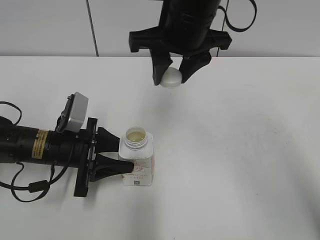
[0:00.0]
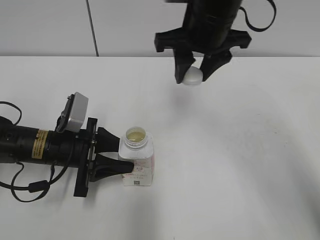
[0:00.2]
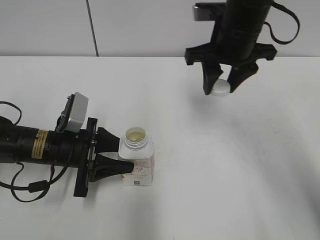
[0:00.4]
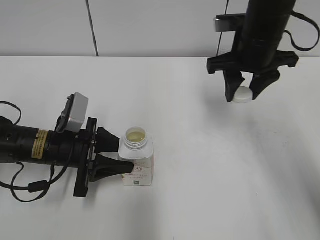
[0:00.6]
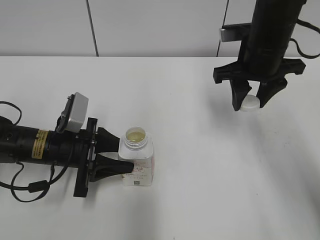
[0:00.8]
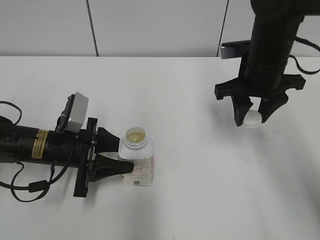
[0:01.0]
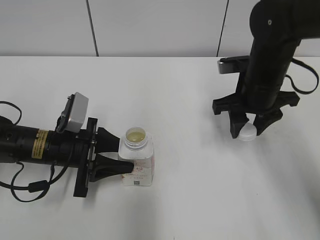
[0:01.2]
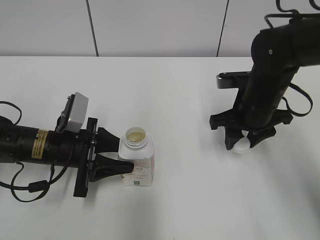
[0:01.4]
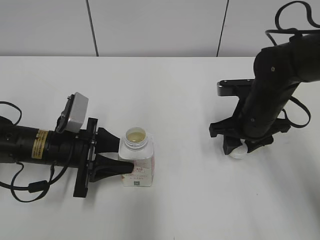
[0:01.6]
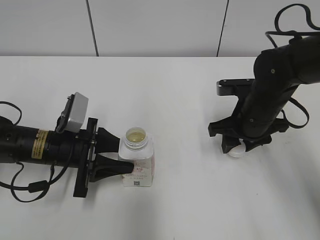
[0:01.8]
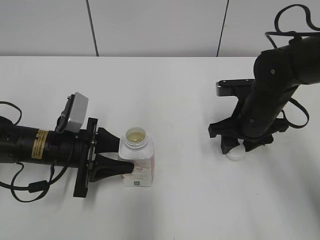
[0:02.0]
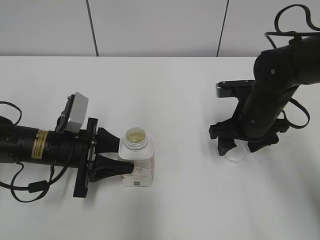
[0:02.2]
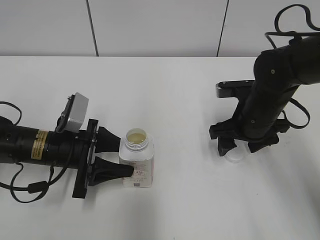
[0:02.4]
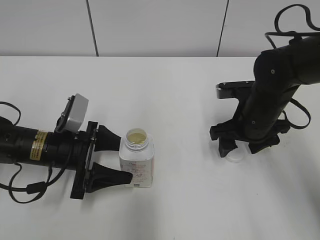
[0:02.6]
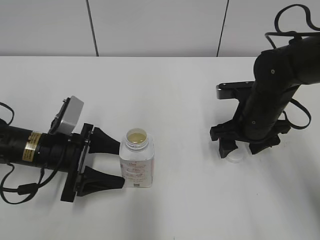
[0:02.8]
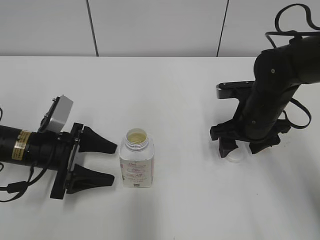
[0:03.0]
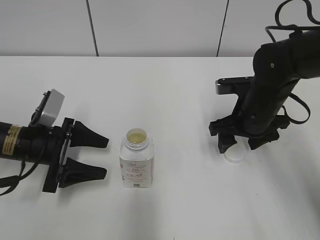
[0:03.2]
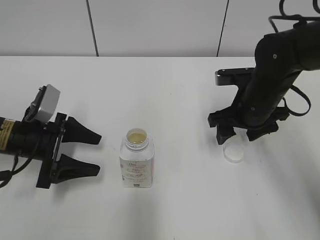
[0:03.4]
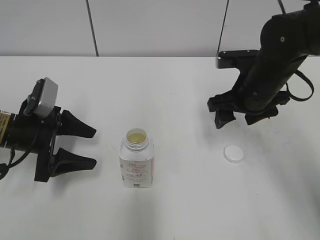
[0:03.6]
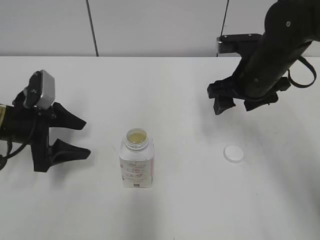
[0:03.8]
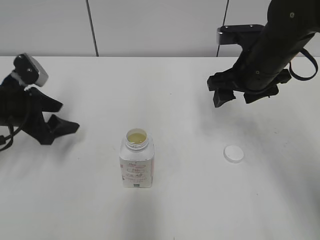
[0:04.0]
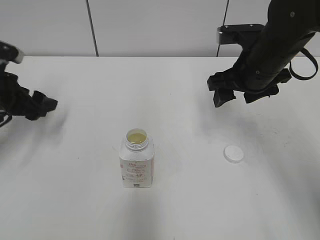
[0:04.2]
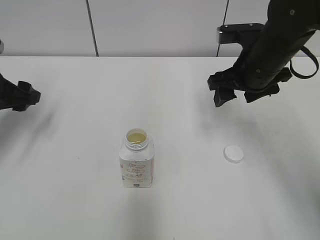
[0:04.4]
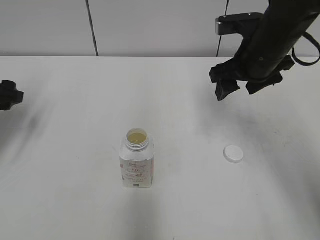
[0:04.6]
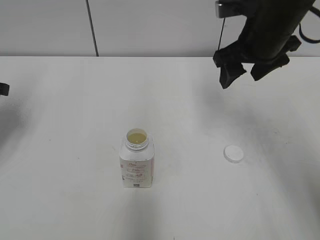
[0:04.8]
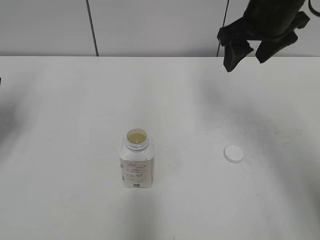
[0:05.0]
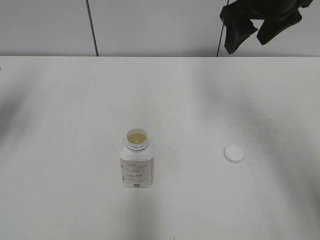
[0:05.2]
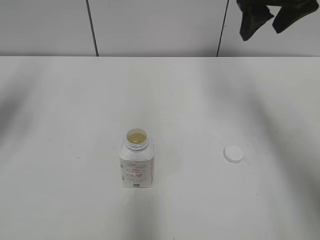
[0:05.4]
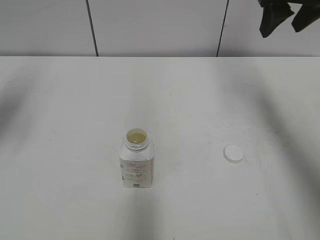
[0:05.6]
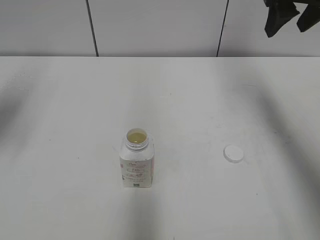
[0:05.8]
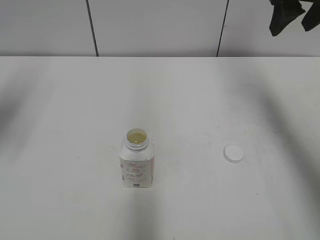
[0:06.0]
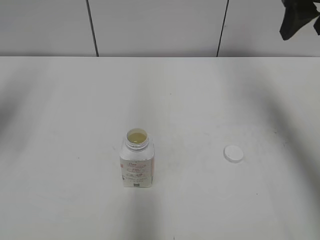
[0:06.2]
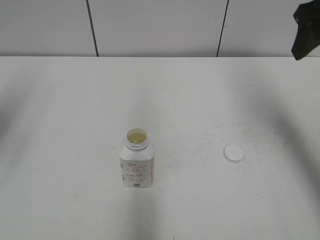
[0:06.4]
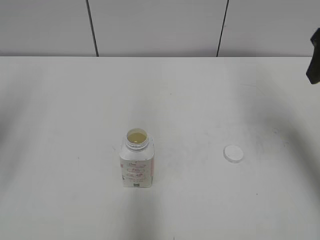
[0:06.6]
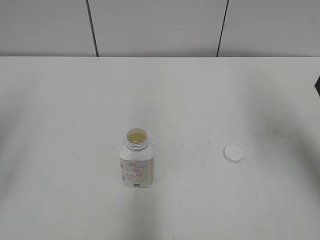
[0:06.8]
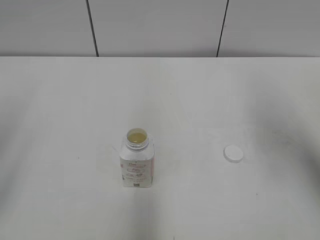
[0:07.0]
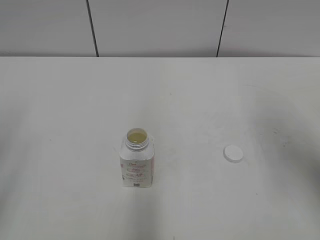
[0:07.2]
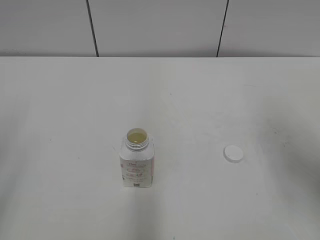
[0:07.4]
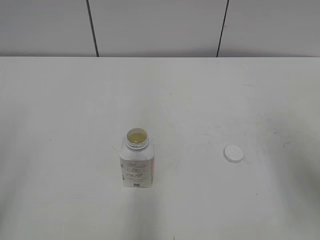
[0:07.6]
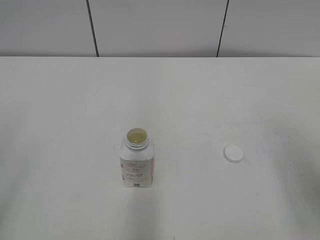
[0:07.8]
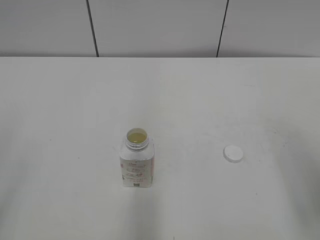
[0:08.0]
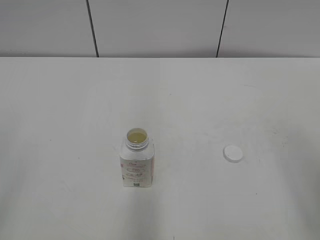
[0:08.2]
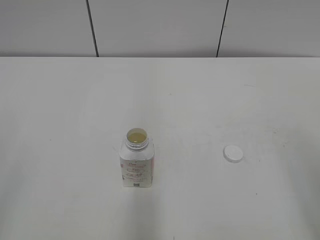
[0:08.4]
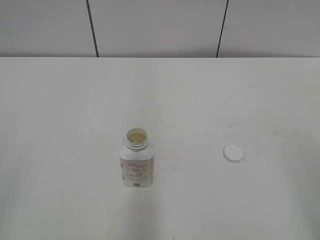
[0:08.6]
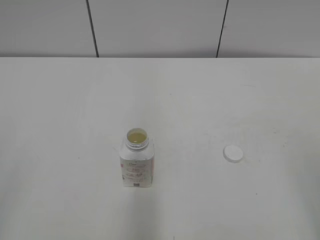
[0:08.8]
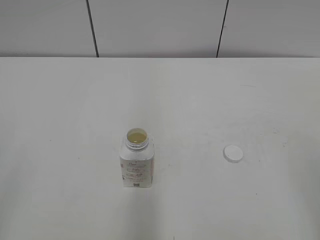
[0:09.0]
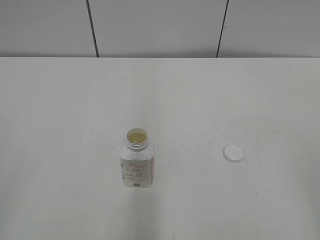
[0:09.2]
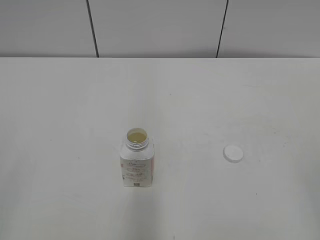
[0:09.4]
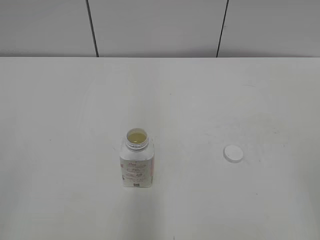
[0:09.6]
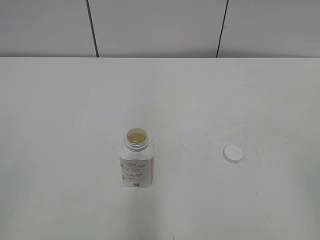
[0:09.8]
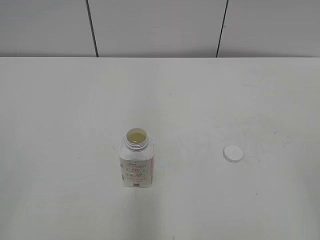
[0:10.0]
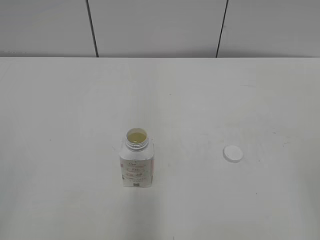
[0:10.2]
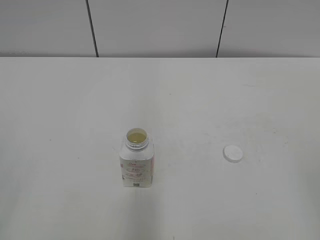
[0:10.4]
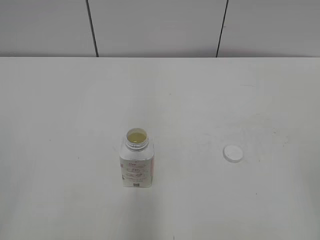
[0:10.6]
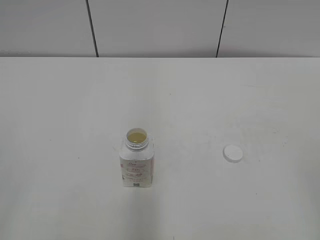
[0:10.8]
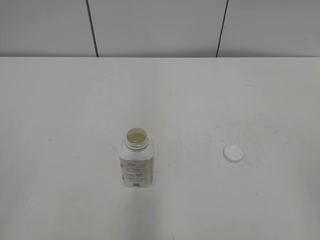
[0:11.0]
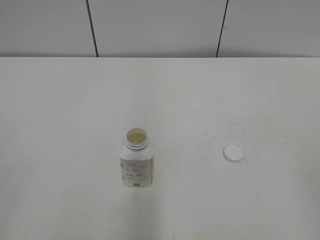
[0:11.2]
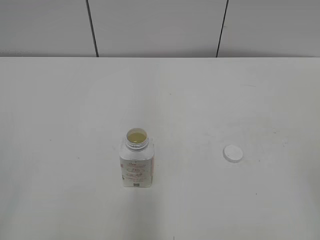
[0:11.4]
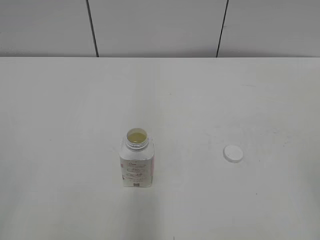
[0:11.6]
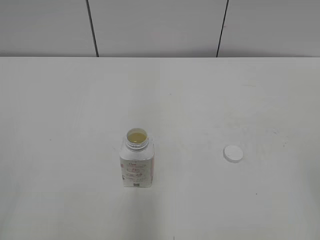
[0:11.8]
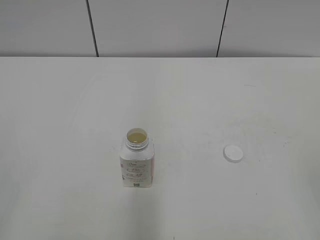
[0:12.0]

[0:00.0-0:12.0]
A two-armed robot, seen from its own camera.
Step, 0:00.0 to 0:02.0: Place the bottle cap on the table with the right gripper.
Step, 0:02.2 to 0:02.8: Place the bottle on the table with the left gripper.
0:00.0 to 0:01.6: The right gripper shifts roughly 20 cm downward and to the right.
0:01.6 to 0:03.0: The left gripper opens. Meanwhile the right gripper opens.
0:03.0 to 0:04.4: The left gripper moves upward and to the left, approximately 15 cm. Meanwhile the right gripper is displaced upward by approximately 10 cm.
0:04.4 to 0:06.0: The right gripper travels upward and to the right by roughly 15 cm. The left gripper moves upward, roughly 15 cm.
0:06.0 to 0:07.6: Both grippers travel together backward, some 20 cm.
0:07.6 to 0:09.0: The right gripper shifts approximately 15 cm backward.

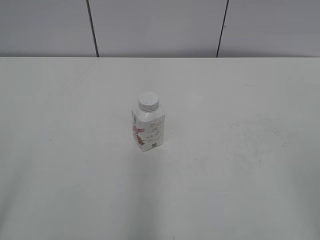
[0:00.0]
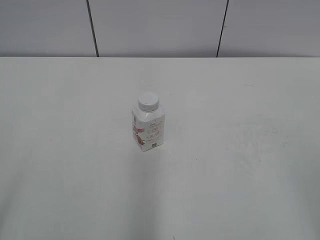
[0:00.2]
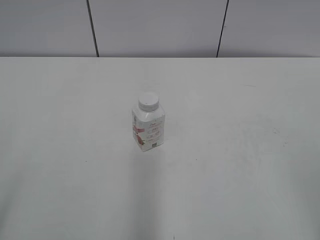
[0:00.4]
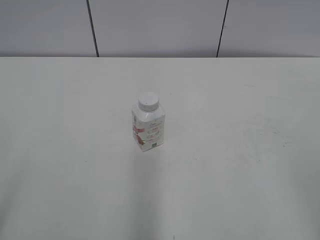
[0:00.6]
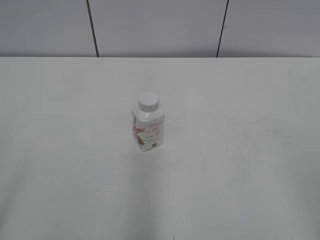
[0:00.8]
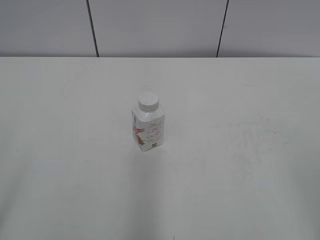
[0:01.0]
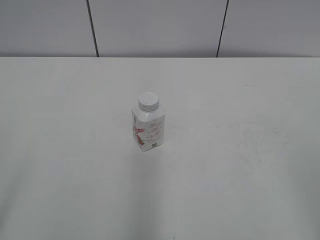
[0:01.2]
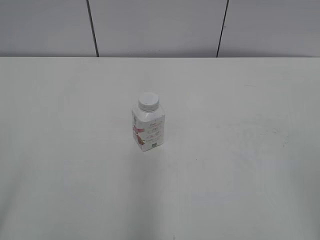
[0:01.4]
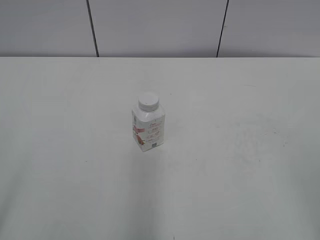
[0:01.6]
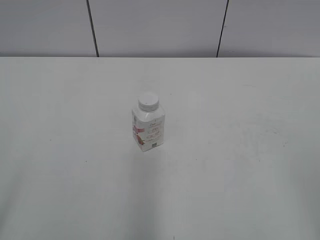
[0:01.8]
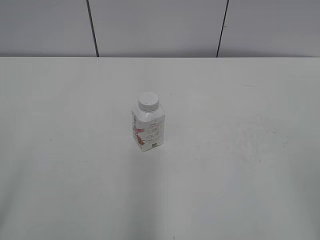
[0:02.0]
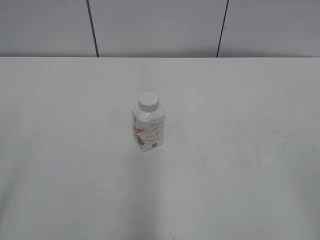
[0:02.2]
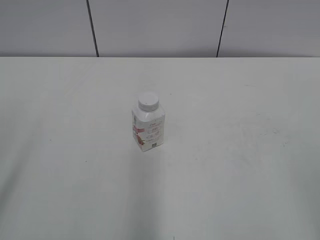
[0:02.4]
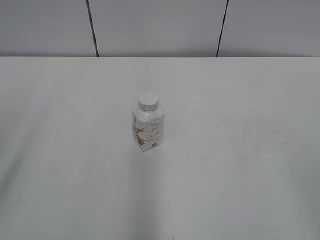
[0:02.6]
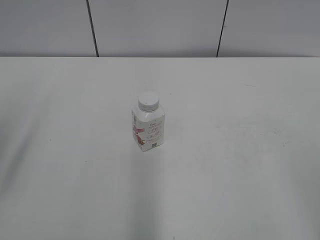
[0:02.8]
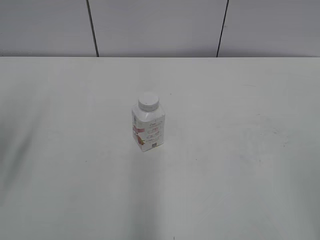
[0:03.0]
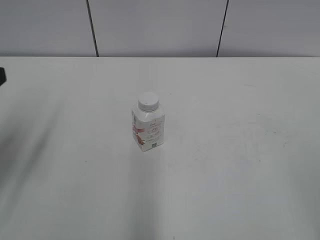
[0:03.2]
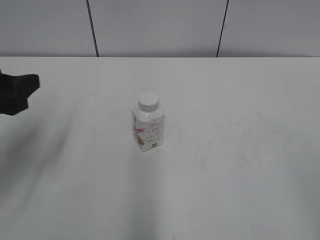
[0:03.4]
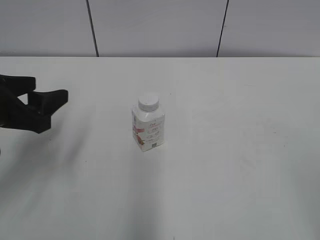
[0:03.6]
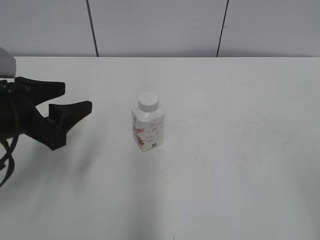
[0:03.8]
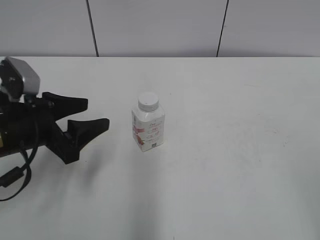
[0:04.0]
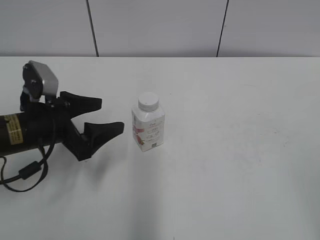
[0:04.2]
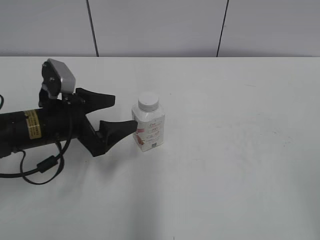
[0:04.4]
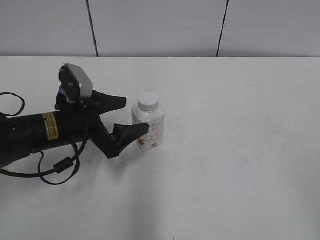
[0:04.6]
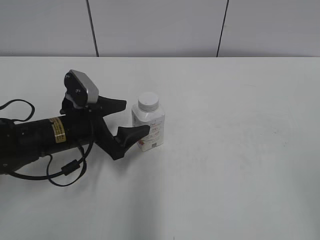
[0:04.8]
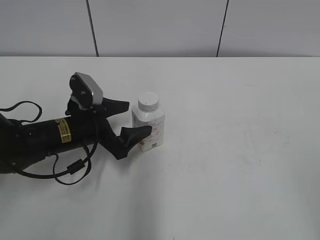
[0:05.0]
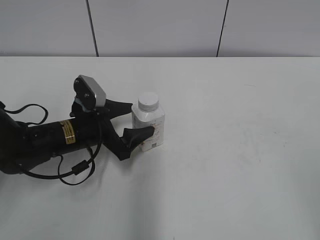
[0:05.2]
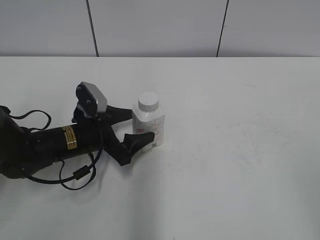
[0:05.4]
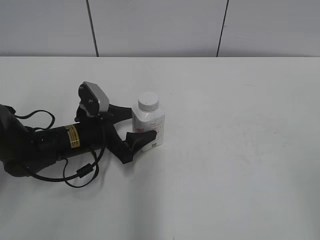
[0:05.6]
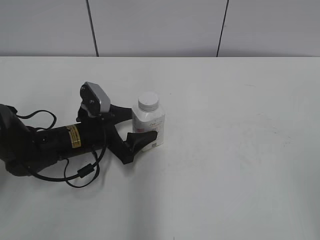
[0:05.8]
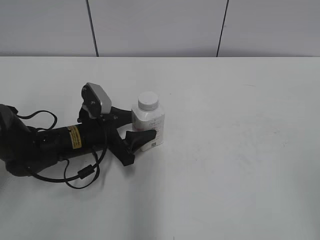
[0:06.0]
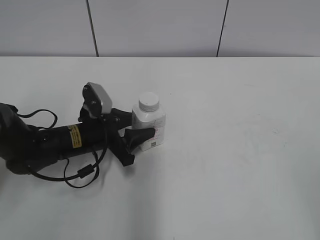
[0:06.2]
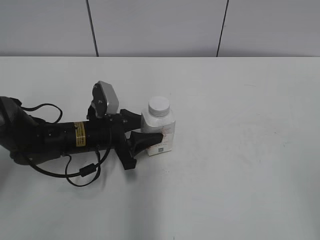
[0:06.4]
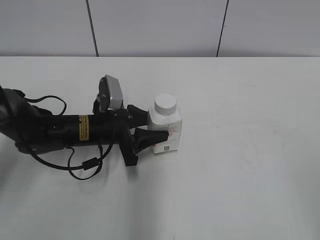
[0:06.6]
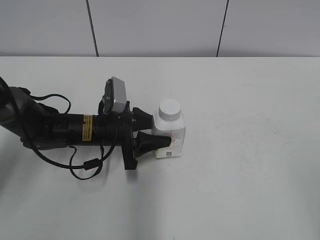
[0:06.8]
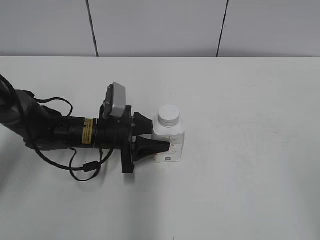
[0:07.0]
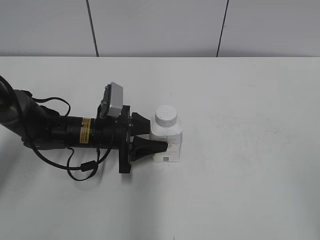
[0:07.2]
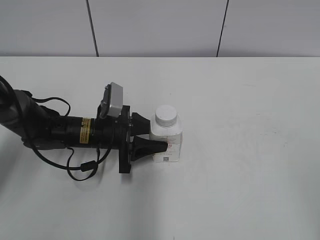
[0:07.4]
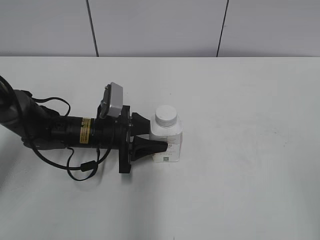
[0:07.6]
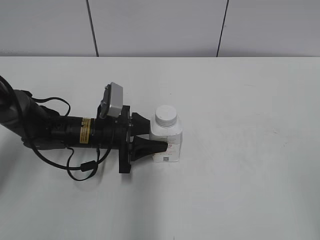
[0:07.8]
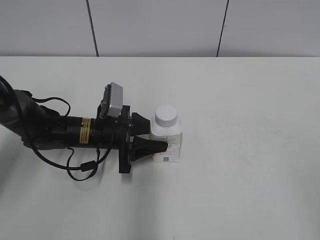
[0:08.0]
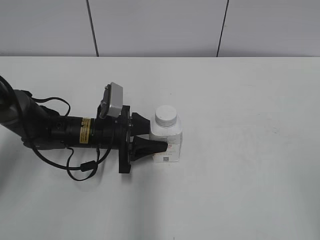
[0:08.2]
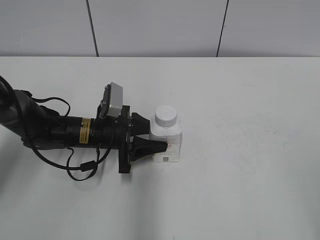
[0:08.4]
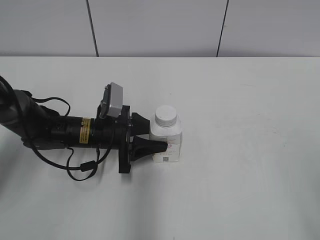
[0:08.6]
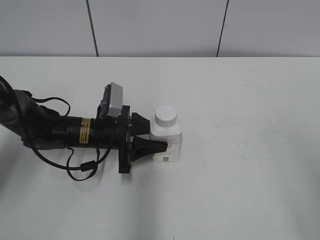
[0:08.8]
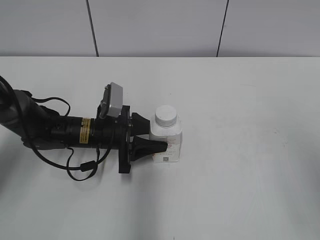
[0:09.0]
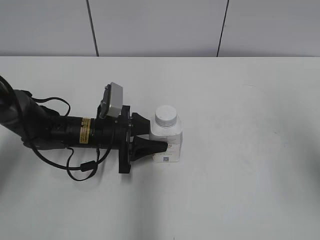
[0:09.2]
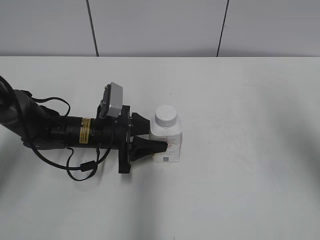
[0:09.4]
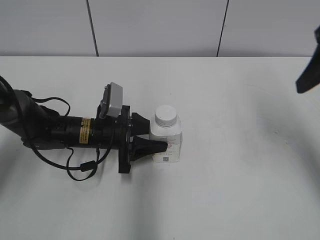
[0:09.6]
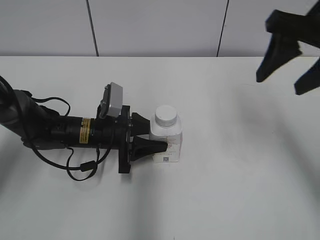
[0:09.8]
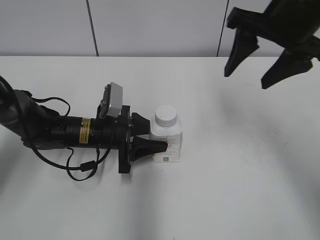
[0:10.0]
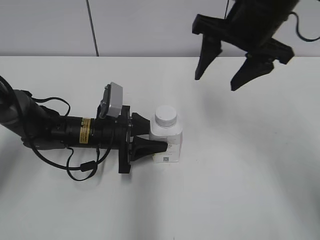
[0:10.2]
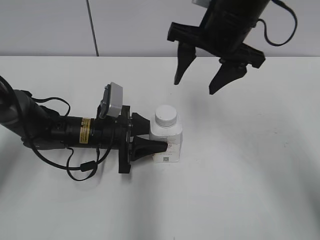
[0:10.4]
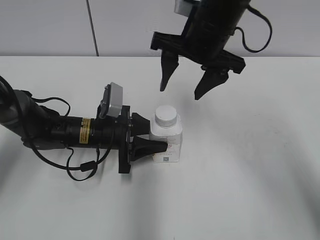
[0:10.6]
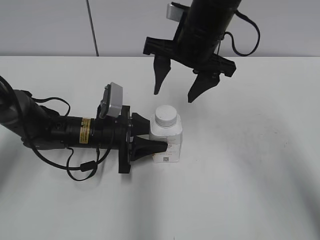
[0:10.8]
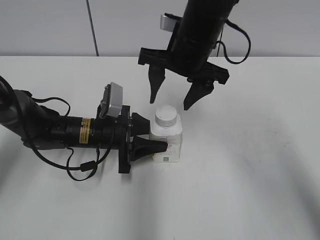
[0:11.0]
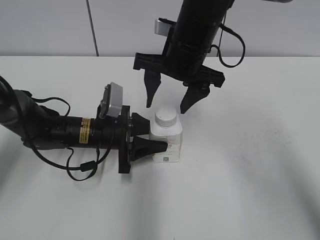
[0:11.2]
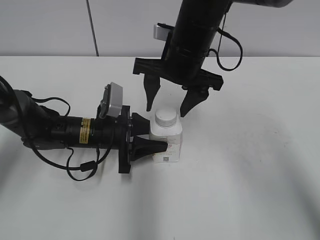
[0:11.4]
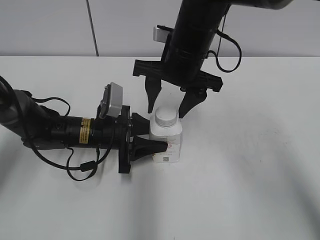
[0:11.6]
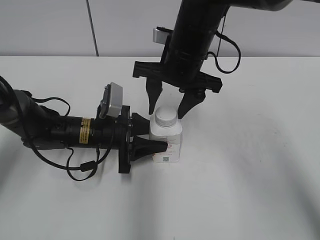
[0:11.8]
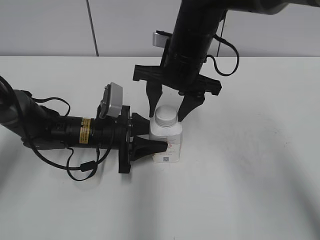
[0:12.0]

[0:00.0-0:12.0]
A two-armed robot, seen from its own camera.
Step, 0:00.0 to 0:06.0: Grab the Yili Changqing with the left hand.
Step, 0:06.2 to 0:08.8: Move the Yili Changqing from left to right.
0:01.6 to 0:03.0: The left gripper moves forward, approximately 15 cm.
0:03.0 to 0:04.4: The left gripper moves downward, to the right and forward, some 25 cm, and opens its fingers.
0:04.4 to 0:06.0: The left gripper shifts about 5 cm downward, and closes.
0:06.0 to 0:07.6: The left gripper closes its fingers.
0:09.0 to 0:10.4: The right gripper goes some 30 cm forward and to the left.
0:10.4 to 0:12.0: The right gripper heads downward and to the left, covering about 10 cm, and closes its fingers.
